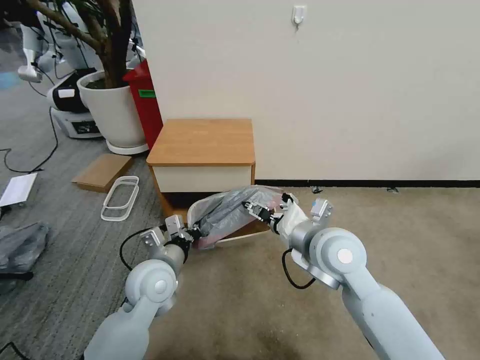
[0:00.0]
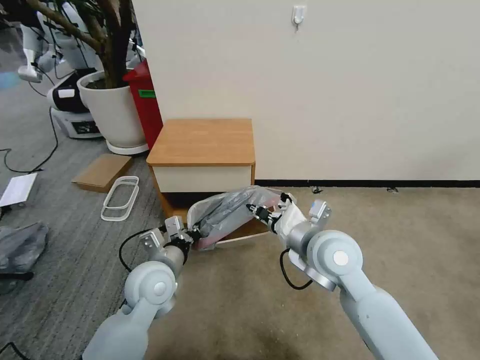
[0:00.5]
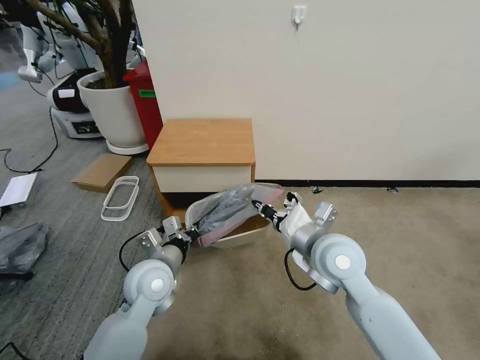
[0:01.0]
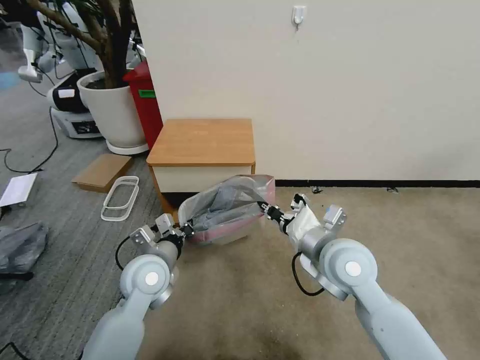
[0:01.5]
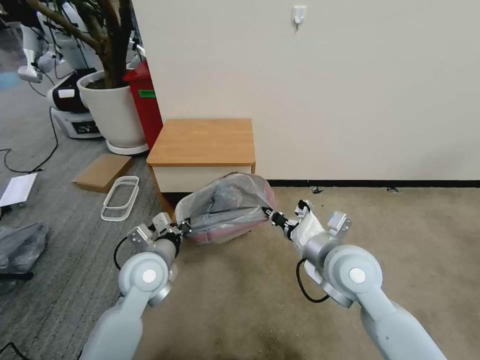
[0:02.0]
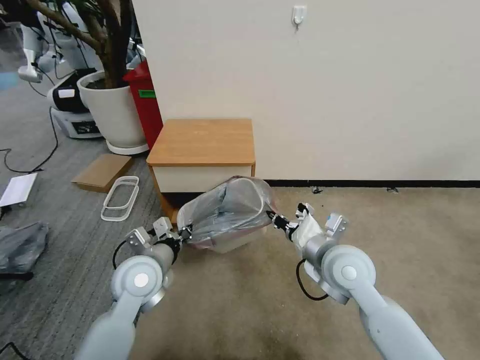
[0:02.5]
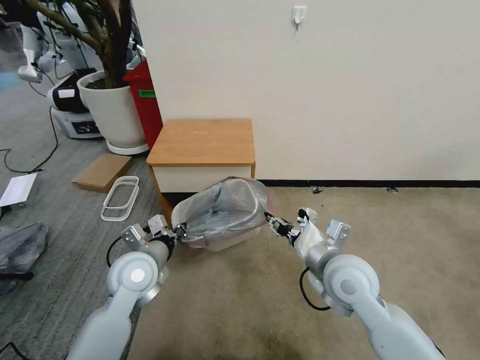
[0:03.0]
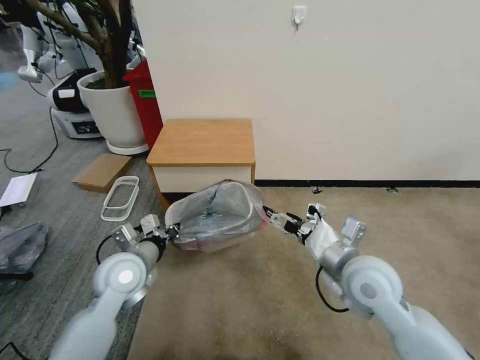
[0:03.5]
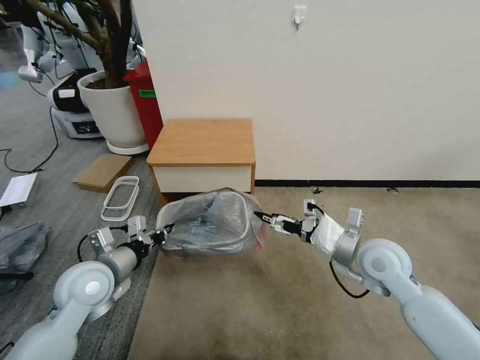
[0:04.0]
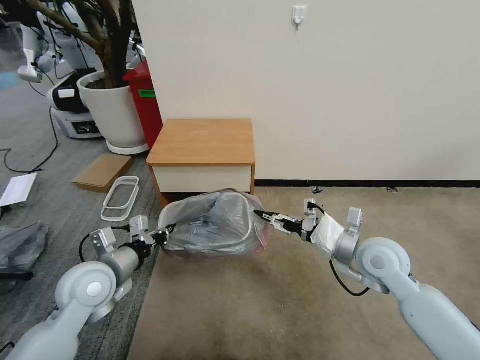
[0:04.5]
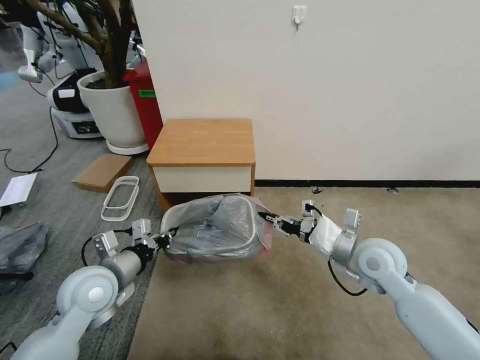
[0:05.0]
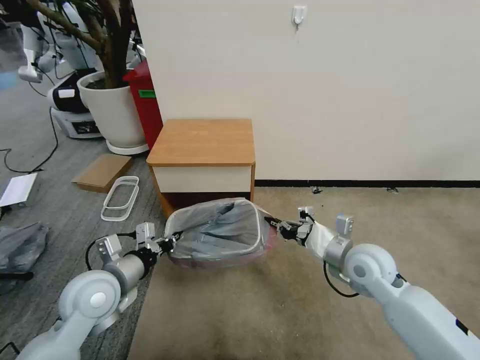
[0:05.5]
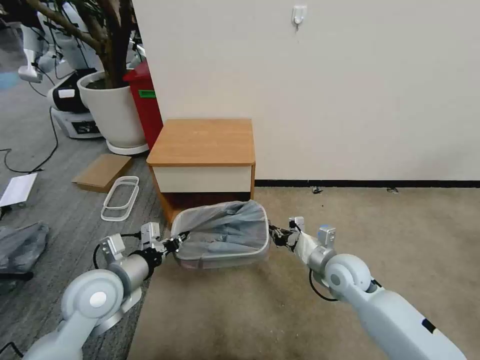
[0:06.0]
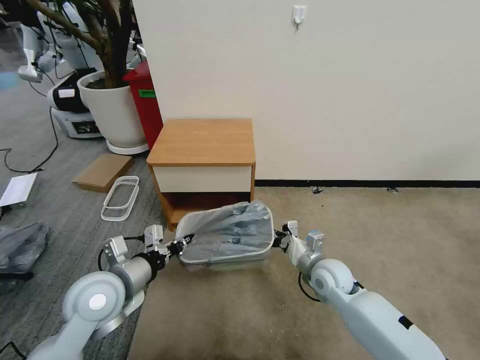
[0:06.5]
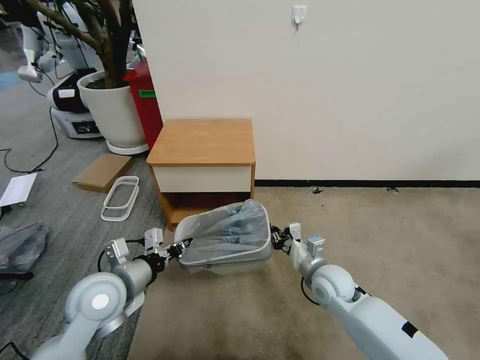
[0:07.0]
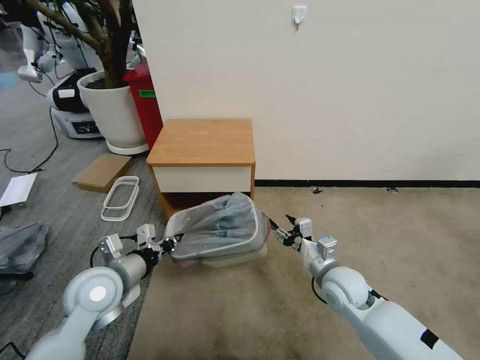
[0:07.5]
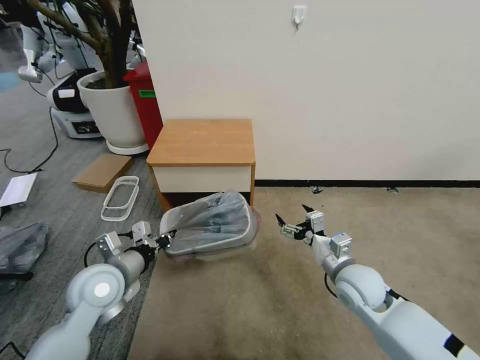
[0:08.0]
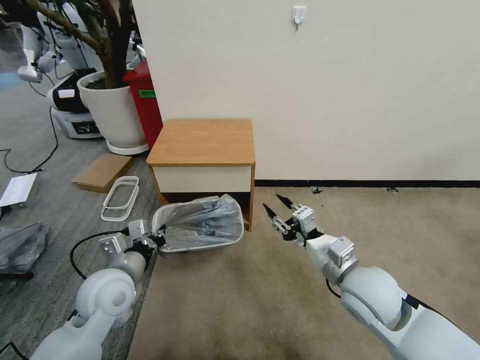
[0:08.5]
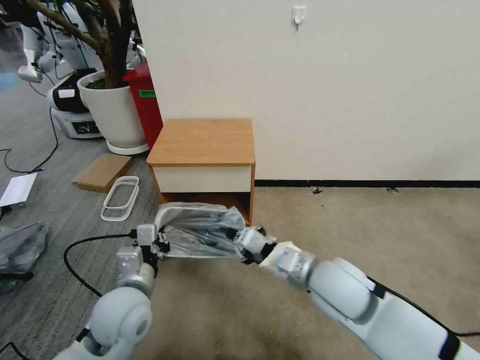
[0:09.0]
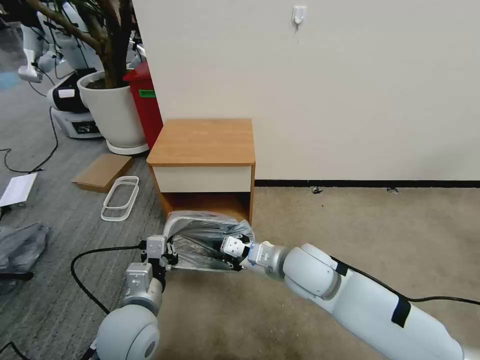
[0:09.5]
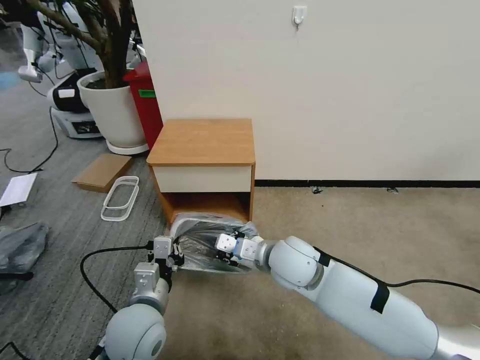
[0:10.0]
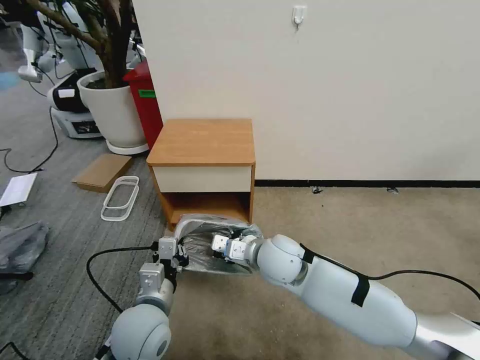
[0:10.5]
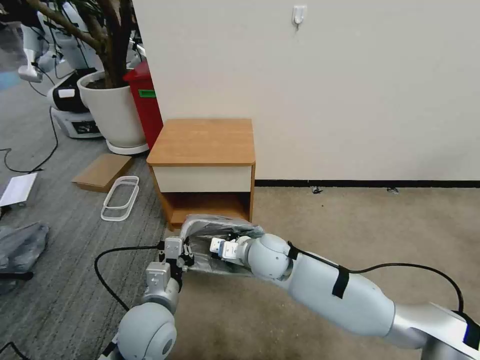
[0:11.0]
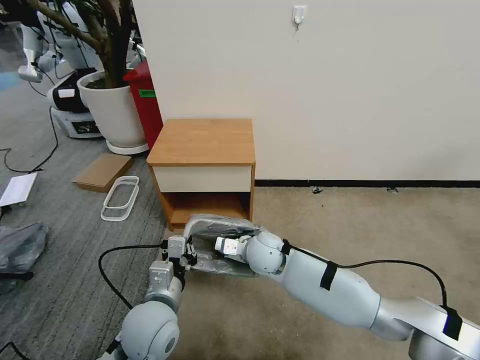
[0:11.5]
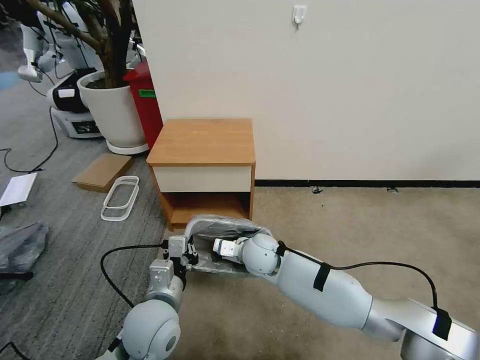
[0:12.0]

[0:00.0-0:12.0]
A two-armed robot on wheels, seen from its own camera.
Task of the whole recording: Pick up the garbage bag from the table and place it over the trash can.
0:00.0 to 0:02.0: The right gripper closes.
0:02.0 to 0:04.0: The left gripper moves to the left, approximately 10 cm. The right gripper shifts approximately 10 cm to the right, and opens.
0:04.0 to 0:06.0: The right gripper shifts some 10 cm downward, and closes its fingers.
0:06.0 to 0:08.0: The right gripper opens.
0:08.0 to 0:10.0: The right gripper is displaced to the left and upward by about 15 cm, and closes up. Meanwhile the left gripper heads to the right and backward, covering approximately 10 cm.
0:10.0 to 0:12.0: The right gripper heads downward, forward and to the left, covering approximately 10 cm.

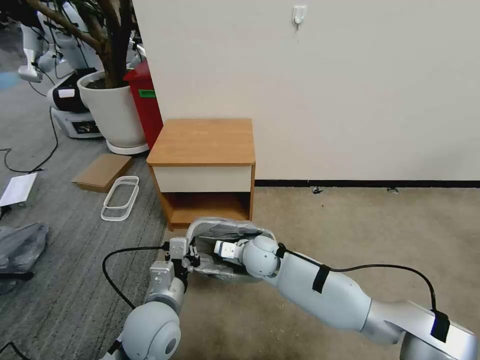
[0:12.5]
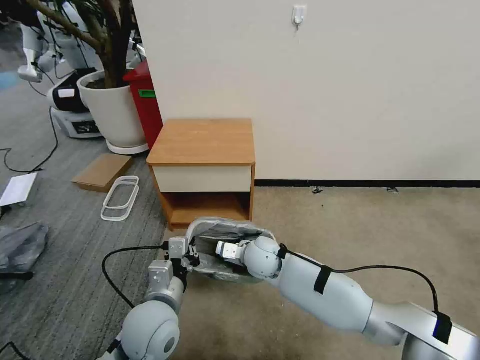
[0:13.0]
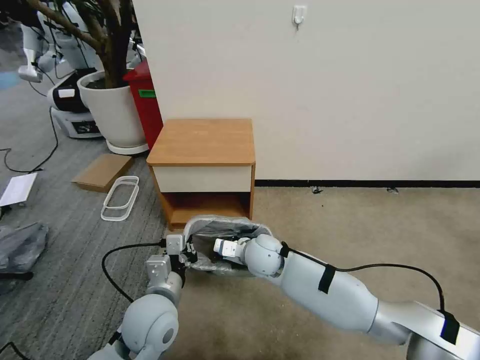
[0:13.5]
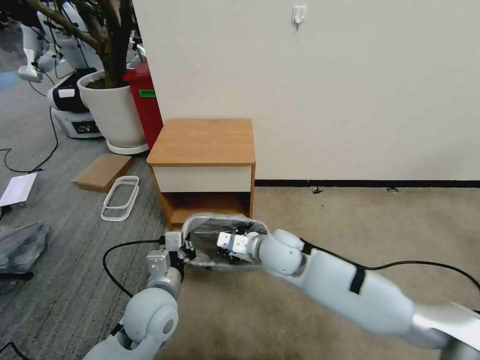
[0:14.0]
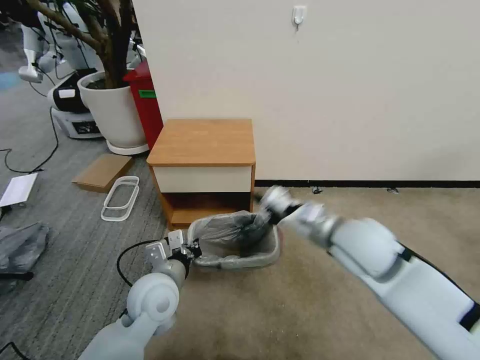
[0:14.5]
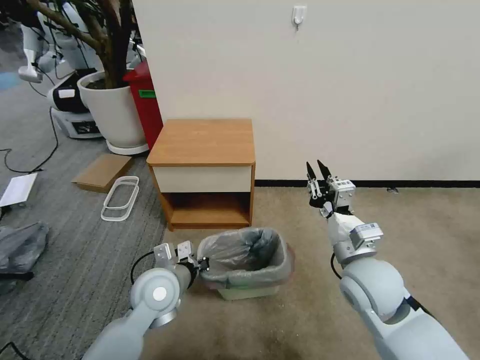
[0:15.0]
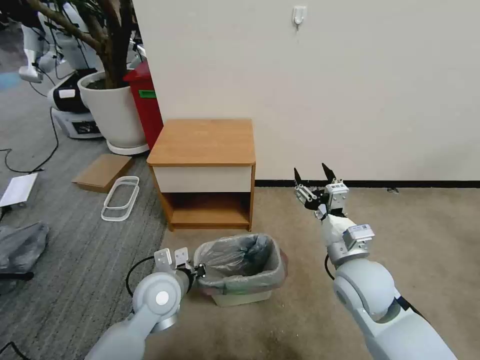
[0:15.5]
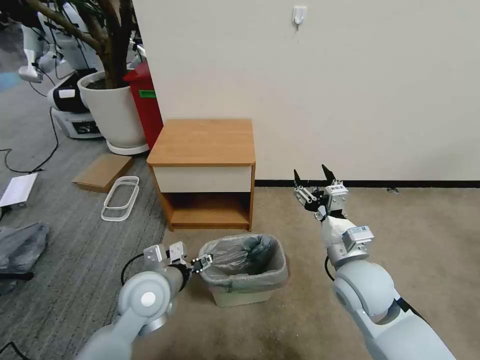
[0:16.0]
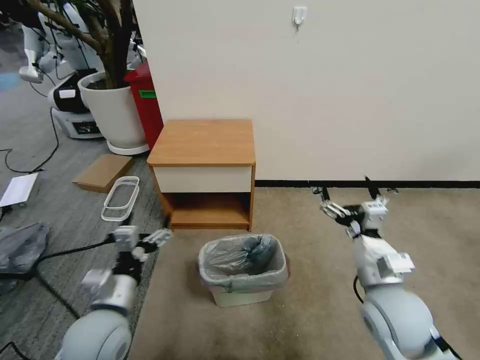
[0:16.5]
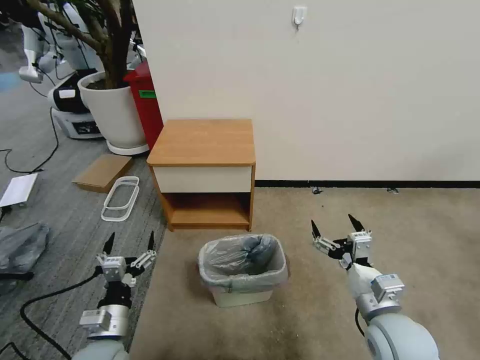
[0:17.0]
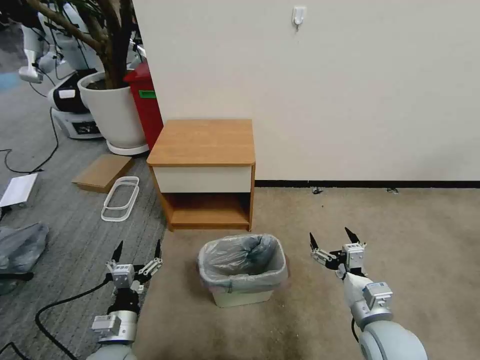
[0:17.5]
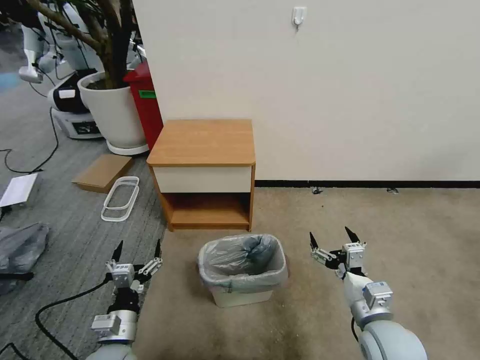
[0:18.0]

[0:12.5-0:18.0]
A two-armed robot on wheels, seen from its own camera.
Task of the whole recording: Pick up the garbage bag from the table and place it over the trash can.
0:12.5 to 0:14.5: The right gripper heads upward, to the right and backward, covering approximately 25 cm. The left gripper shifts about 5 cm forward.
0:14.5 to 0:16.0: The right gripper goes approximately 10 cm downward, and opens its fingers. Meanwhile the left gripper opens its fingers.
0:16.0 to 0:18.0: The left gripper goes roughly 20 cm downward, backward and to the left; the right gripper travels backward, downward and to the right by roughly 15 cm.
